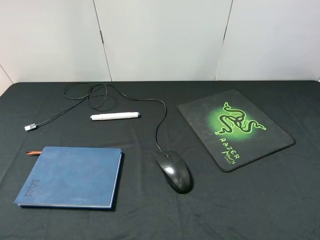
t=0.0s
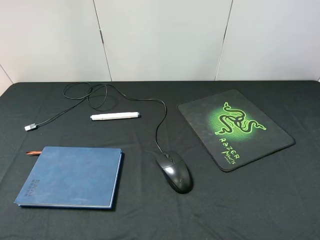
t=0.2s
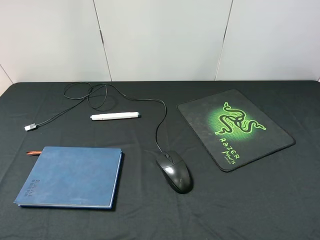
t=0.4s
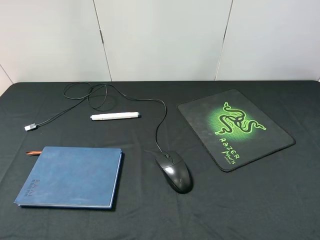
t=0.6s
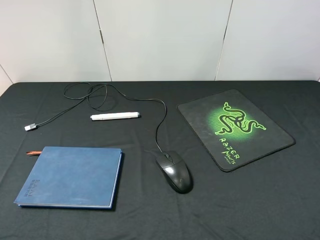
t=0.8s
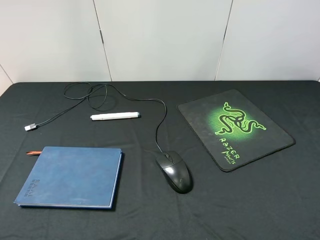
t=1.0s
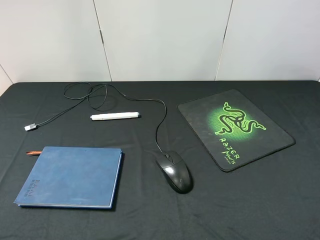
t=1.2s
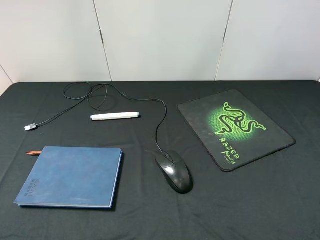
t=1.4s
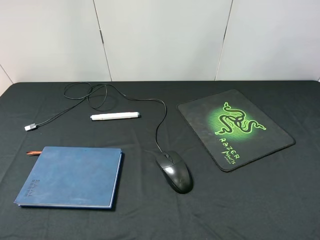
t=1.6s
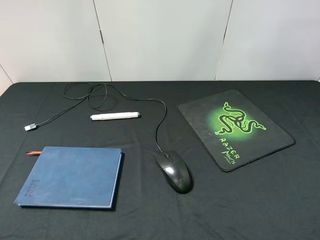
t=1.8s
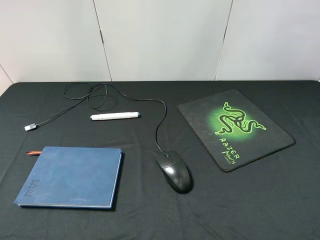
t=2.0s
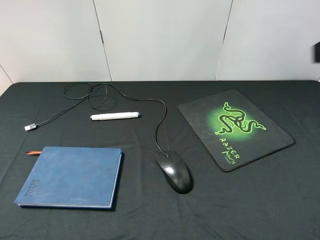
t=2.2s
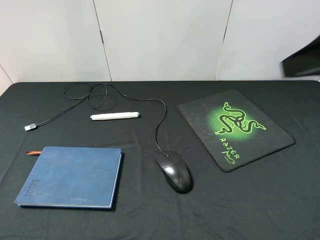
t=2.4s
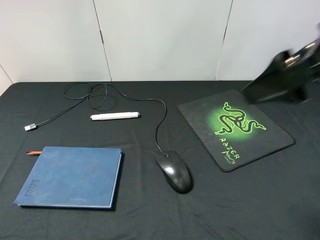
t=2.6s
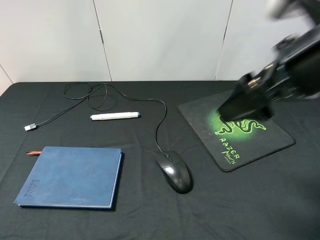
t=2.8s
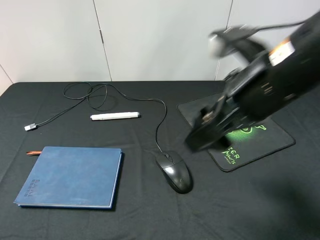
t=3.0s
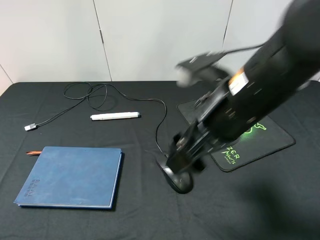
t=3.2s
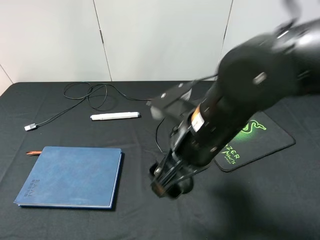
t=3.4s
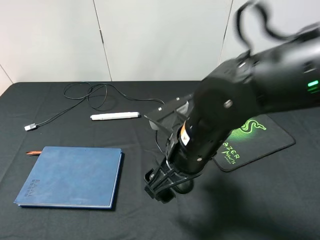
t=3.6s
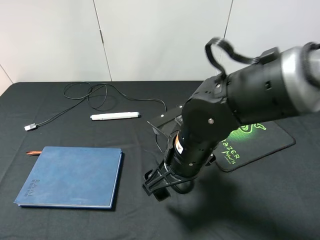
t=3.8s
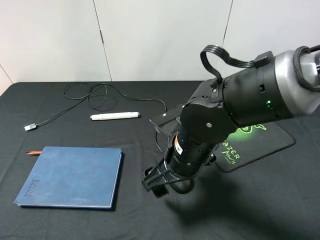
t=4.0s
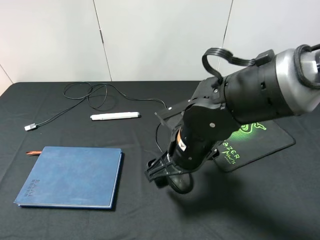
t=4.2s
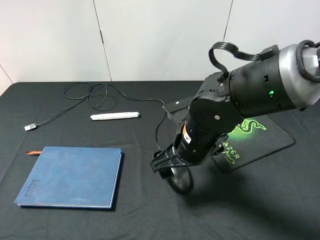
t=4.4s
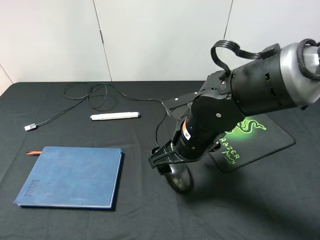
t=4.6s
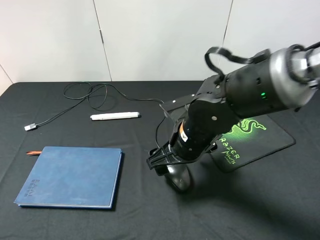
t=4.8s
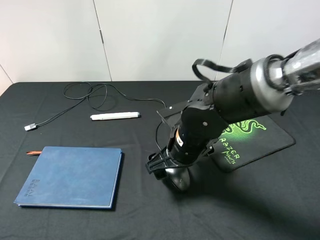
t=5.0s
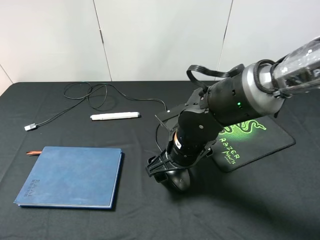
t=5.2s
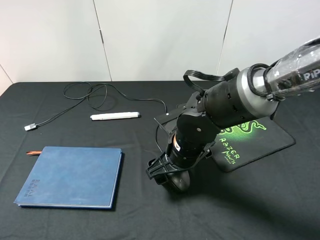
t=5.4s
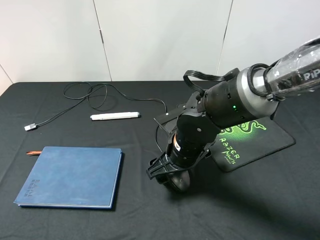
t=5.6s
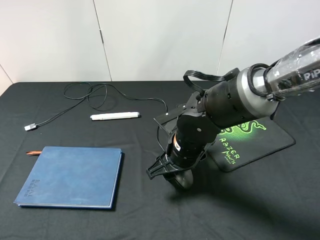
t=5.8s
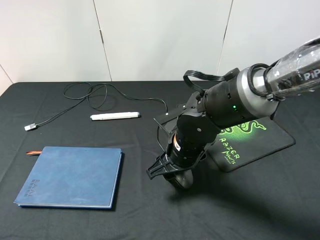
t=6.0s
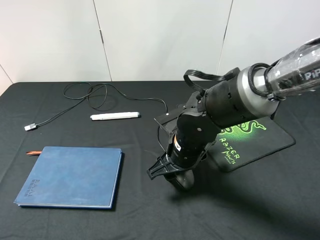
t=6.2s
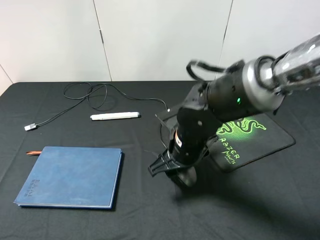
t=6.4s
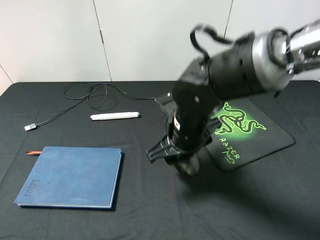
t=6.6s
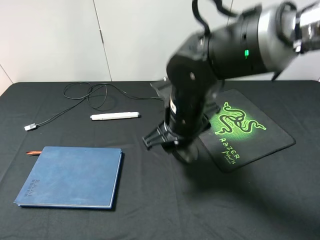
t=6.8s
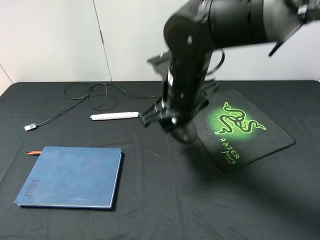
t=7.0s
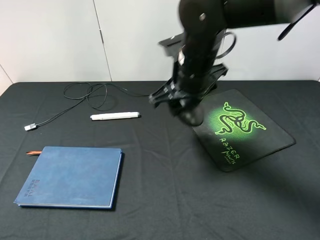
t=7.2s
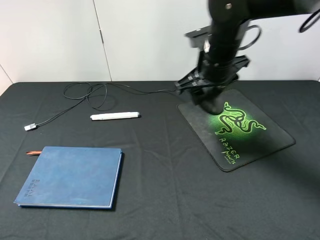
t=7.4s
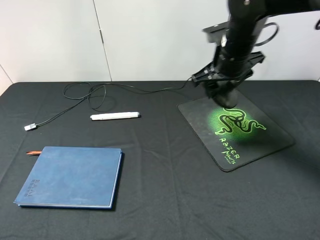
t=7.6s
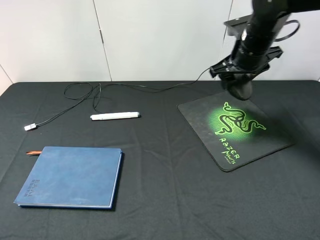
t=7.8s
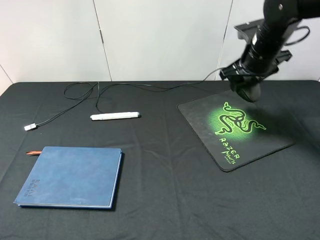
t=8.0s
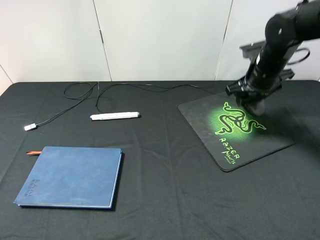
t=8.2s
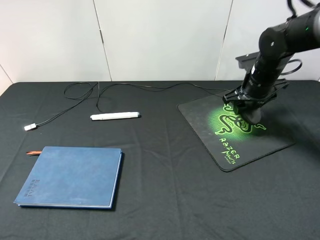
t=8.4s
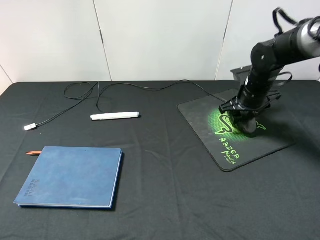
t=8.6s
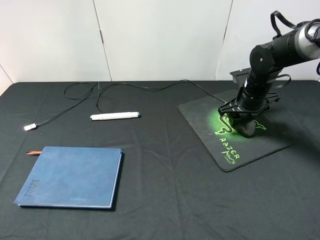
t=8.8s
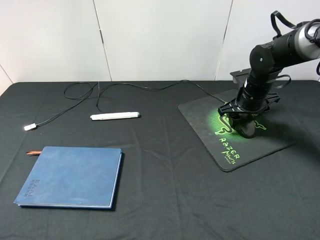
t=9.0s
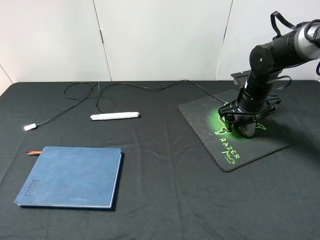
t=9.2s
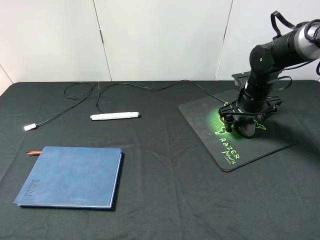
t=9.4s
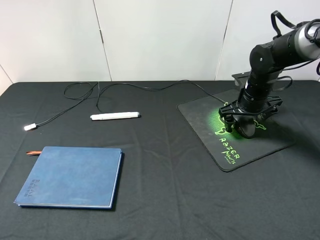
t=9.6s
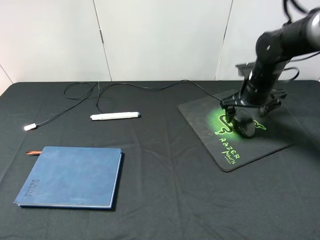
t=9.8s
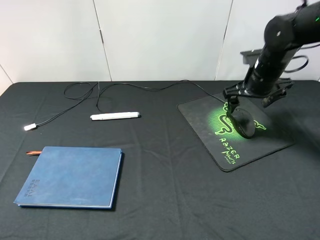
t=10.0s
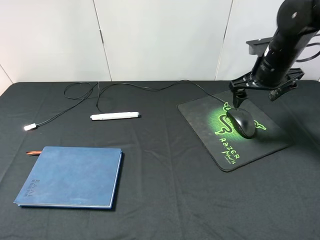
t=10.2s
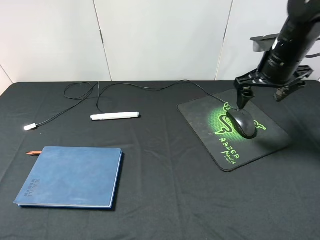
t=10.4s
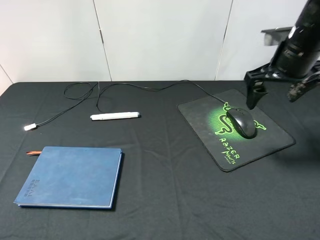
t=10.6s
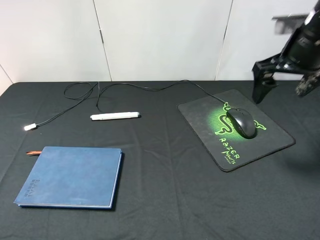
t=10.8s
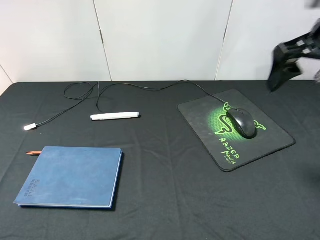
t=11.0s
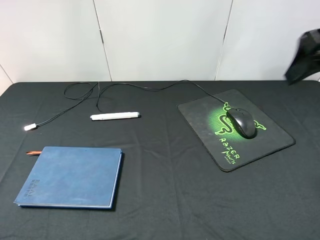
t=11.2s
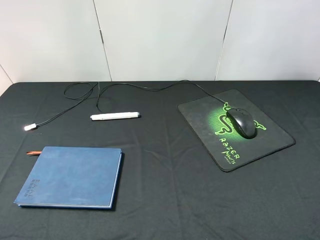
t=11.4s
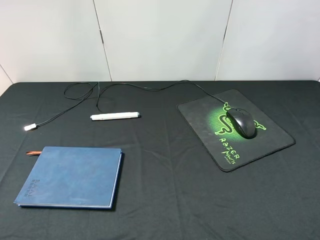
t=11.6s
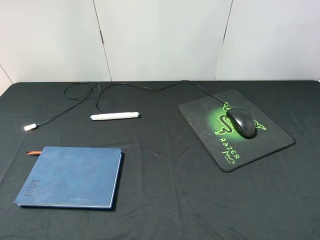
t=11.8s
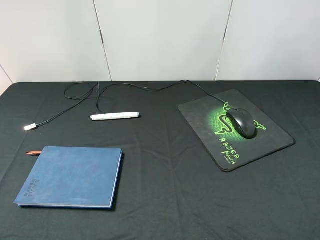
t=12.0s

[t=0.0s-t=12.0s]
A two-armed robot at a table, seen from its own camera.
Step, t=0.0s to t=6.6s: Pick up the mouse with right gripper.
Step, t=6.8s to t=10.0s: Place the mouse on the mouse pad with right gripper.
t=1.6s to t=3.0s: The right gripper travels to the left, forward and downward by some 25 cm.
t=3.0s to t=4.4s: The right gripper travels downward and to the left by approximately 15 cm.
t=4.4s to t=6.0s: The right gripper closes its fingers.
t=6.0s to t=7.6s: The right gripper travels upward, forward and to the right by approximately 20 cm.
t=7.6s to t=9.0s: The right gripper moves downward and to the right, approximately 15 cm.
t=9.0s to t=10.4s: The right gripper shifts roughly 10 cm upward, and opens its fingers.
t=10.4s to t=12.0s: The right gripper moves backward and upward, roughly 30 cm.

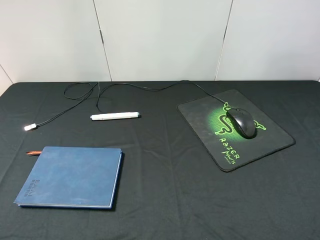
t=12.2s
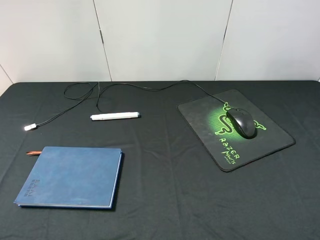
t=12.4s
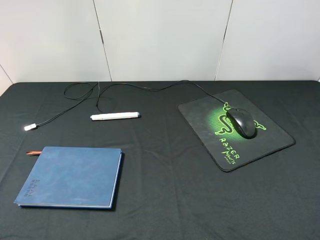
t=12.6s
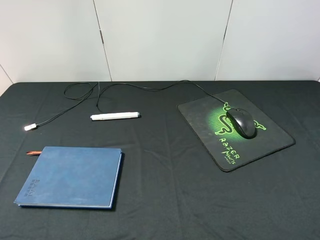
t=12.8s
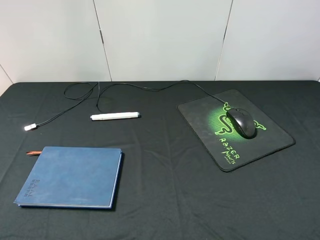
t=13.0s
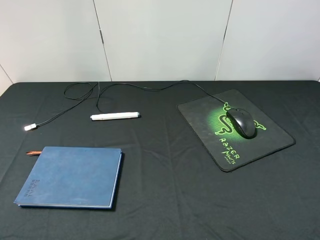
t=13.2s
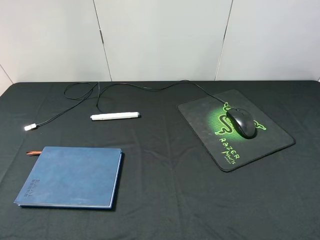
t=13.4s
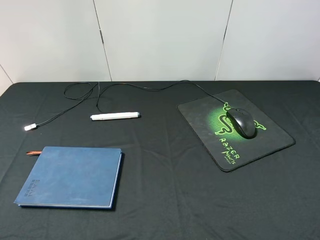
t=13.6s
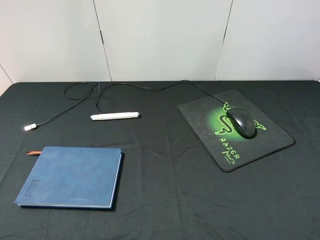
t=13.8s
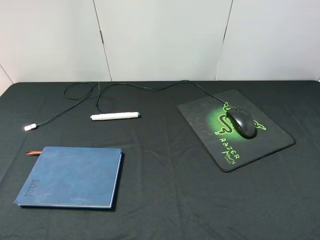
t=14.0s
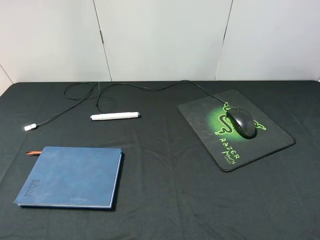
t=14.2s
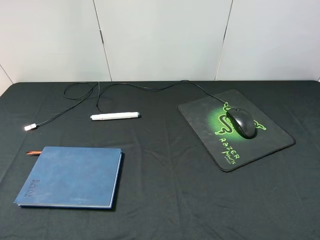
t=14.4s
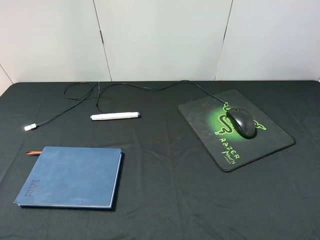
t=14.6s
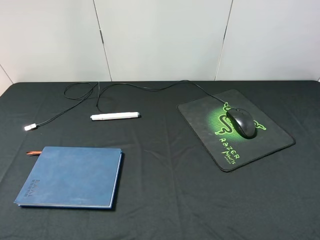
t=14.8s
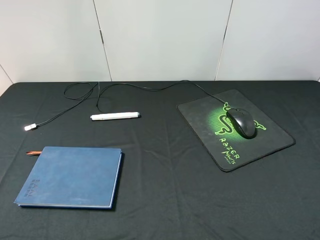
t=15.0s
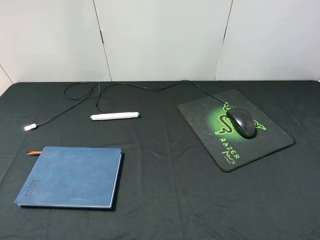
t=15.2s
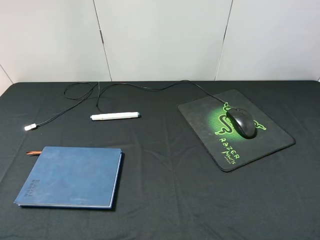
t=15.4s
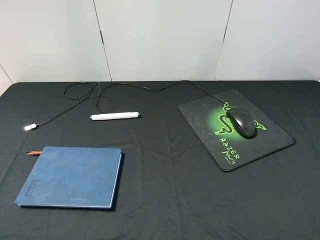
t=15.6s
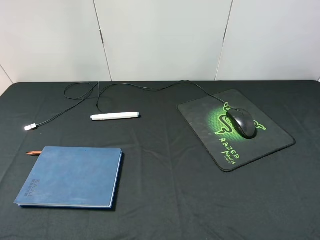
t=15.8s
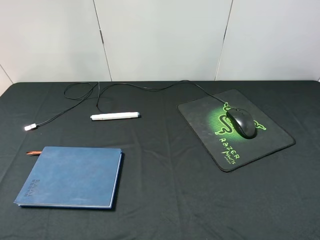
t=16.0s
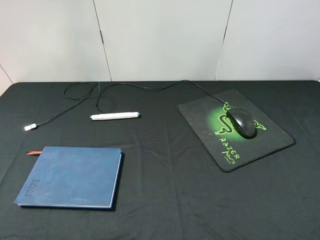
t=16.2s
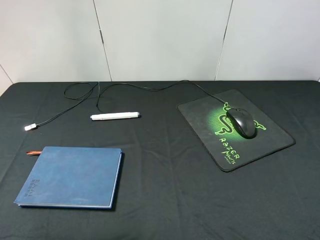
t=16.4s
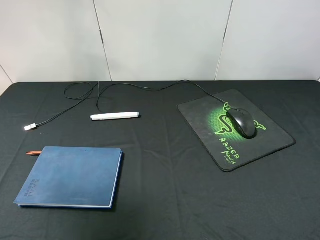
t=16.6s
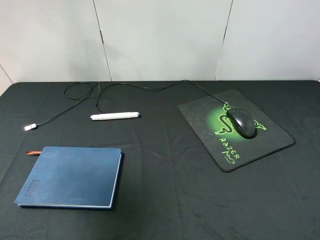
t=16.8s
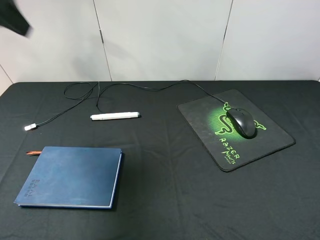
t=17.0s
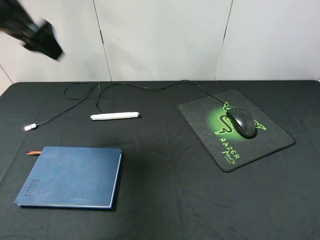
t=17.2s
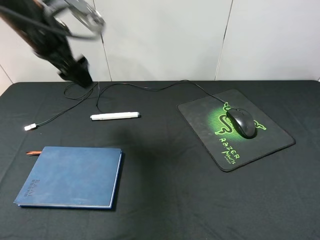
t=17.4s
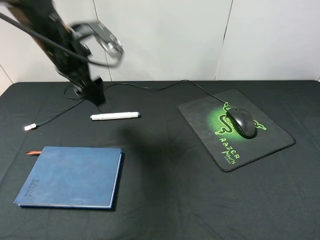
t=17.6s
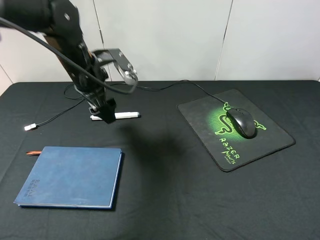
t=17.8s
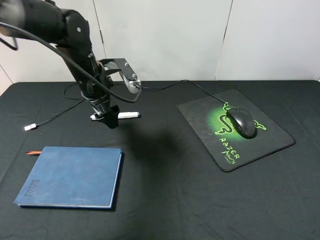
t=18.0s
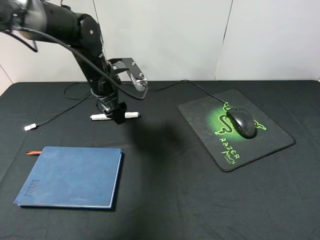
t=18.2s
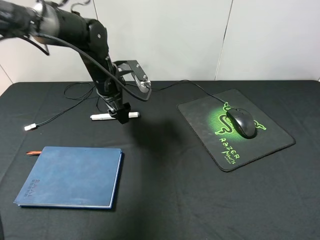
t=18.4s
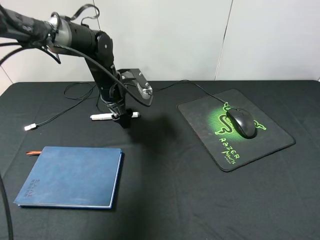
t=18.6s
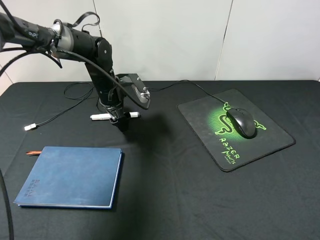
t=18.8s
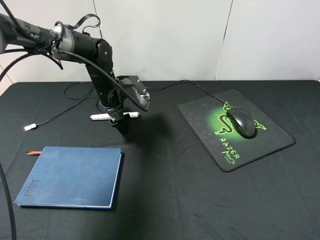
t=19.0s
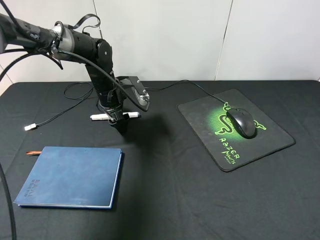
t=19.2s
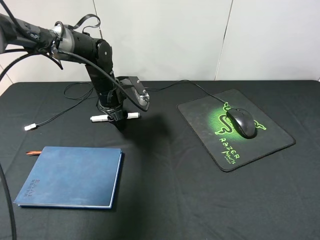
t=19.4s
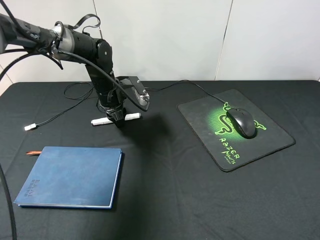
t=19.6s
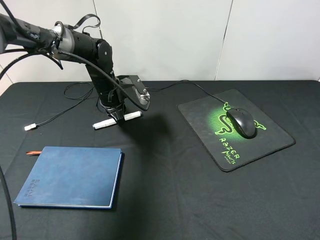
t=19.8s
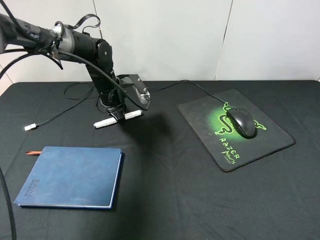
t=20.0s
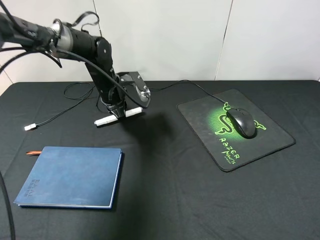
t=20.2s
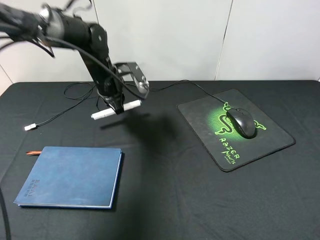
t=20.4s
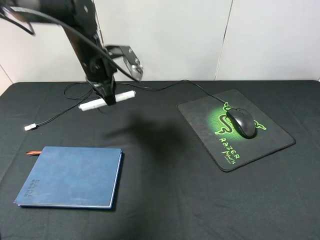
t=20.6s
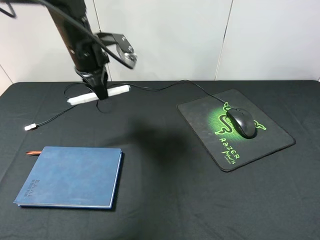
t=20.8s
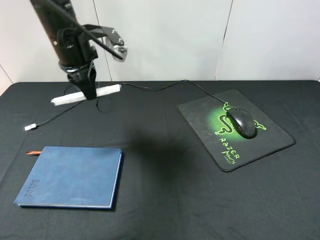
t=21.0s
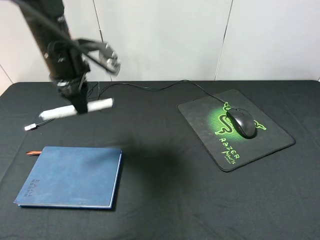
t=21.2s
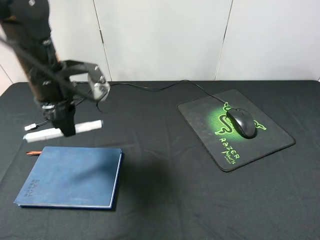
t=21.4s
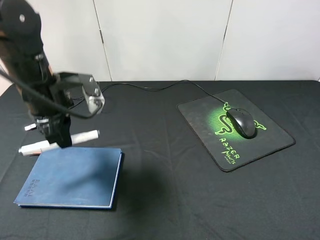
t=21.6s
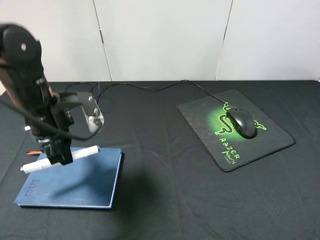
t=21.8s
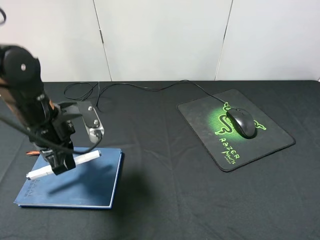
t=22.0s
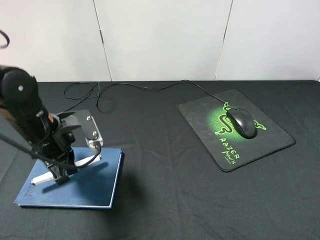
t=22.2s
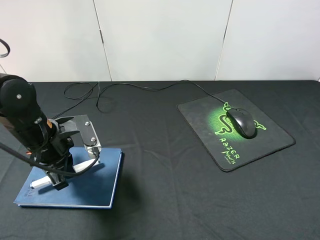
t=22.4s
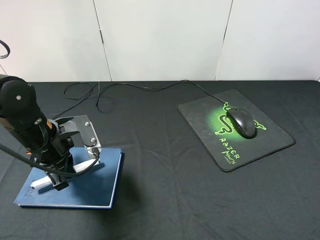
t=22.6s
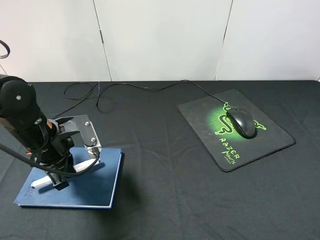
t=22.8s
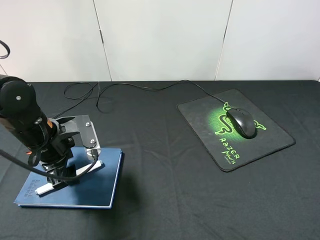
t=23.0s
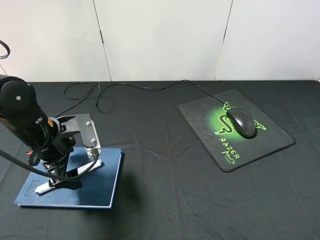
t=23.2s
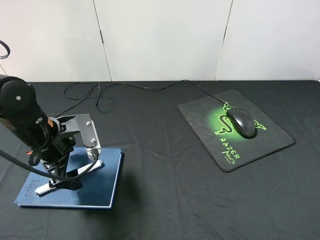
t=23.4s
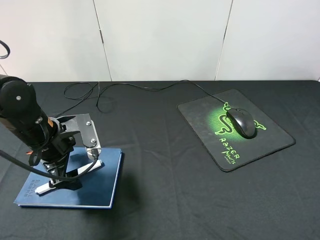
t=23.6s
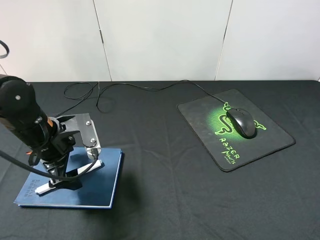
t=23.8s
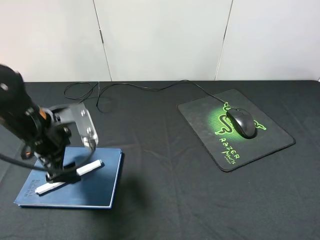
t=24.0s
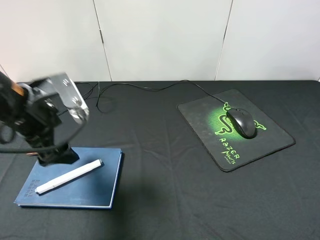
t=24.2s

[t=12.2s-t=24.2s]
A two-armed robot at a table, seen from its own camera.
Step, t=12.2s to t=20.4s: Pick up the marker pen with left gripper.
Step, t=20.6s to t=24.0s: Place the marker pen on the notebook with left gripper.
t=13.8s to t=15.2s: Both grippers stay about where they are.
t=15.2s to t=16.6s: The left gripper travels forward and upward by approximately 25 cm.
t=16.6s to t=18.2s: The left gripper is displaced downward, forward and to the right by approximately 35 cm.
t=18.2s to t=19.8s: The left gripper moves downward, roughly 5 cm, and closes up.
t=19.8s to t=21.2s: The left gripper travels upward and backward by some 15 cm.
t=21.2s to t=22.6s: The left gripper travels downward and backward by about 15 cm.
t=22.6s to t=24.2s: The left gripper goes some 10 cm upward, and opens its fingers.
